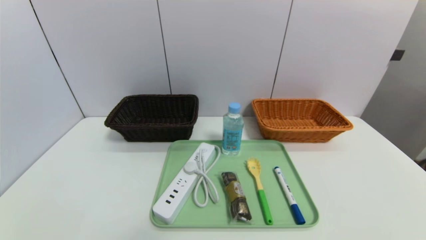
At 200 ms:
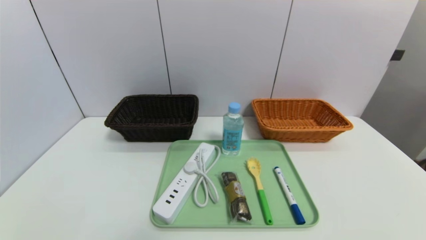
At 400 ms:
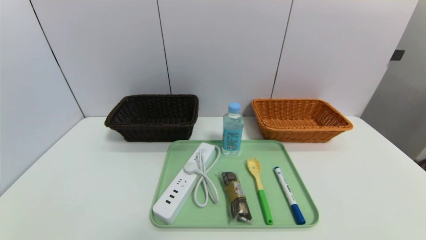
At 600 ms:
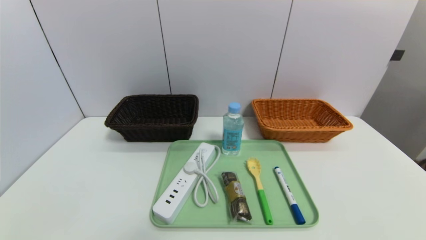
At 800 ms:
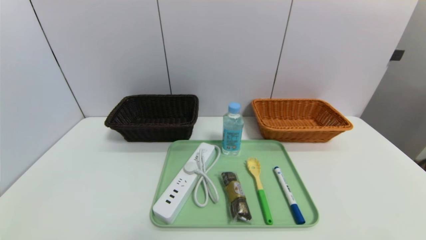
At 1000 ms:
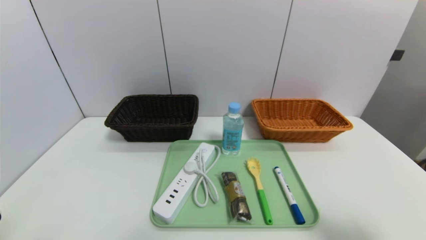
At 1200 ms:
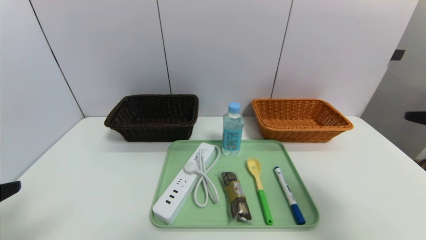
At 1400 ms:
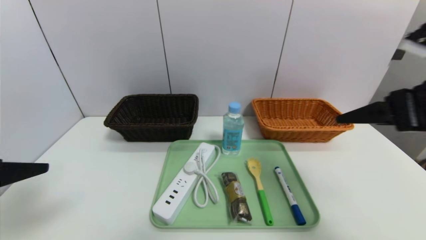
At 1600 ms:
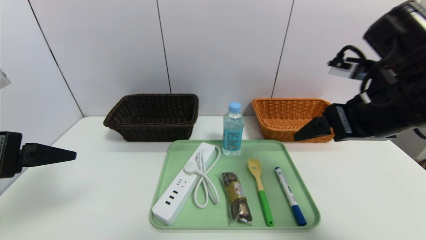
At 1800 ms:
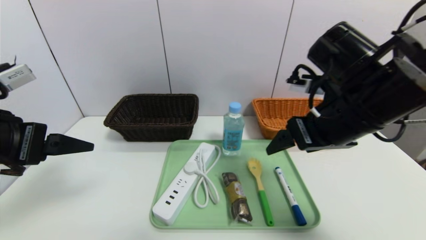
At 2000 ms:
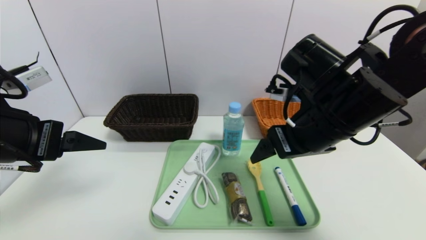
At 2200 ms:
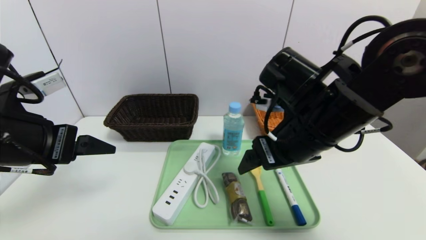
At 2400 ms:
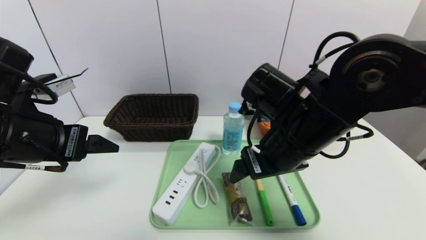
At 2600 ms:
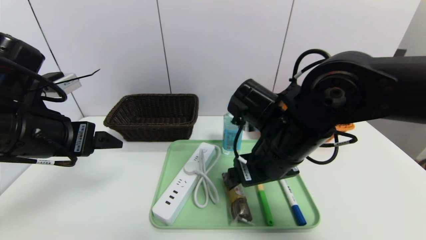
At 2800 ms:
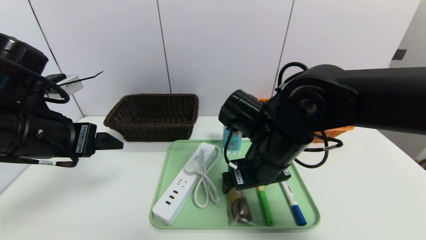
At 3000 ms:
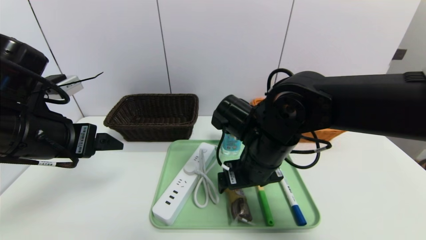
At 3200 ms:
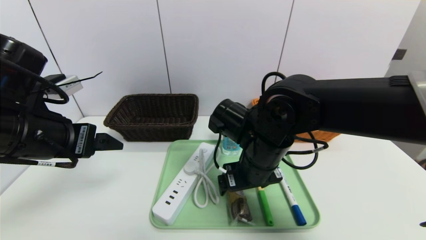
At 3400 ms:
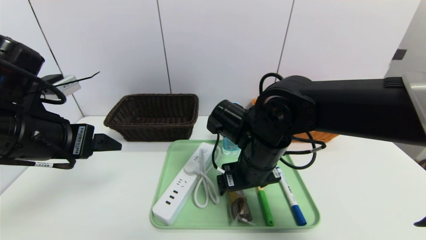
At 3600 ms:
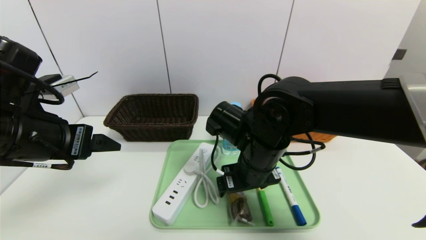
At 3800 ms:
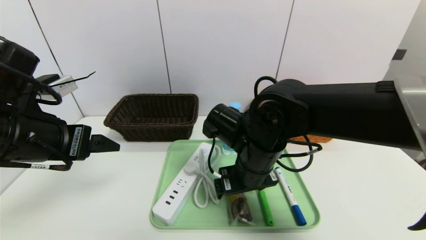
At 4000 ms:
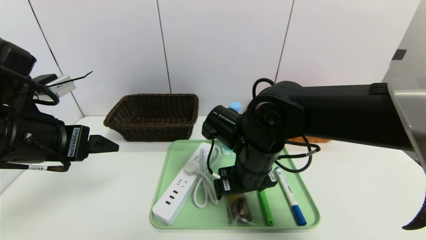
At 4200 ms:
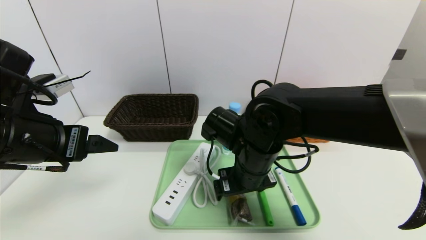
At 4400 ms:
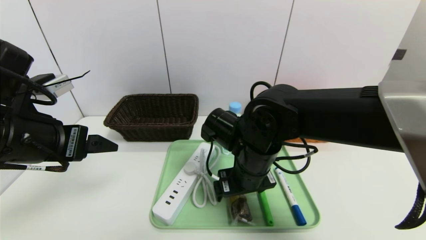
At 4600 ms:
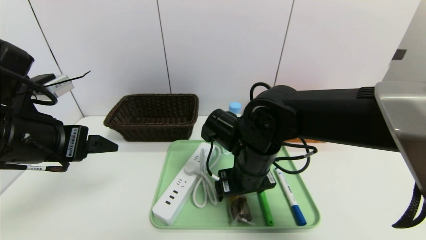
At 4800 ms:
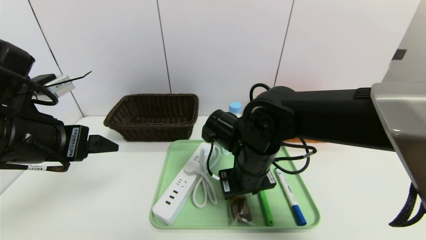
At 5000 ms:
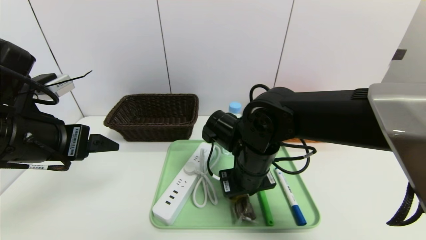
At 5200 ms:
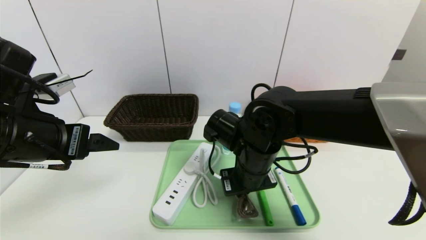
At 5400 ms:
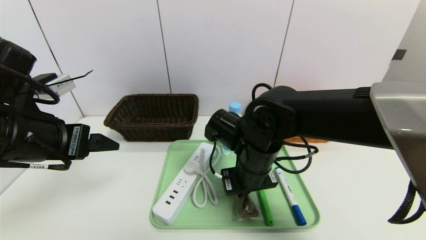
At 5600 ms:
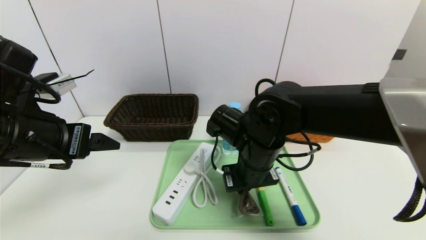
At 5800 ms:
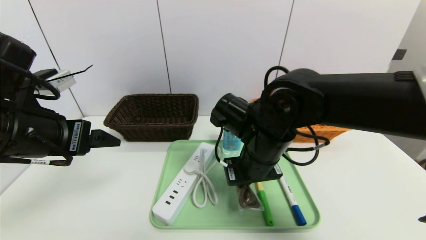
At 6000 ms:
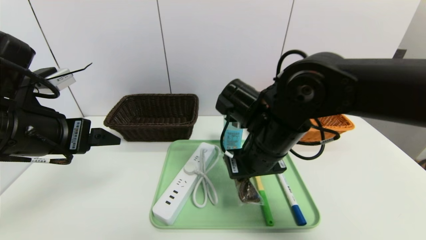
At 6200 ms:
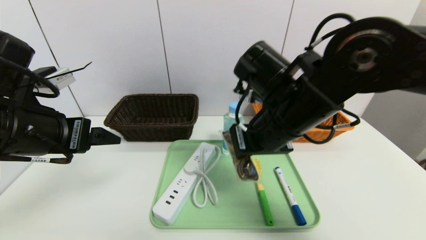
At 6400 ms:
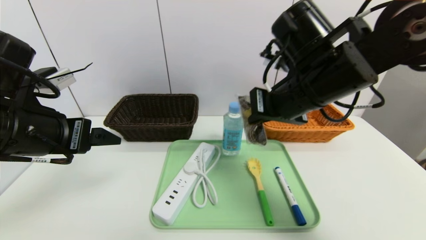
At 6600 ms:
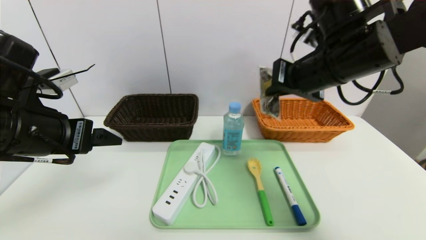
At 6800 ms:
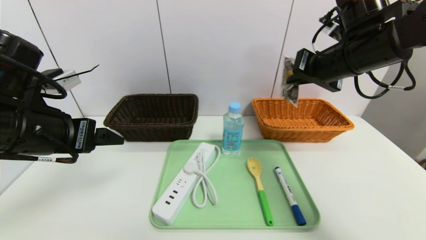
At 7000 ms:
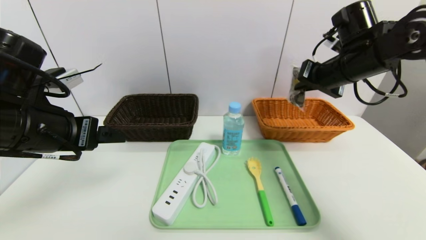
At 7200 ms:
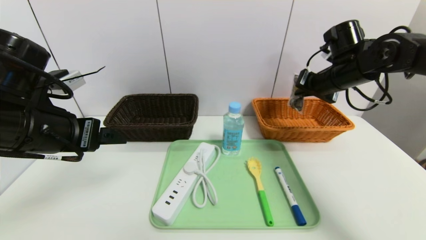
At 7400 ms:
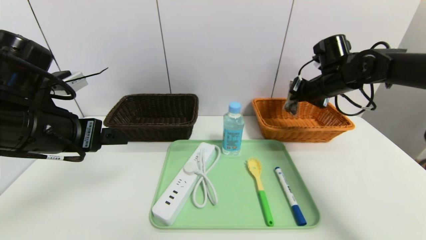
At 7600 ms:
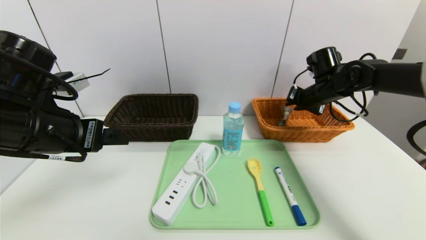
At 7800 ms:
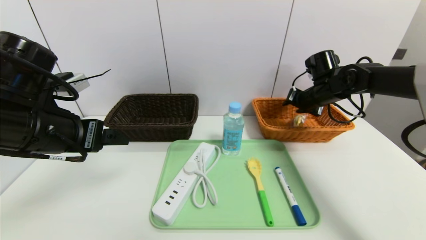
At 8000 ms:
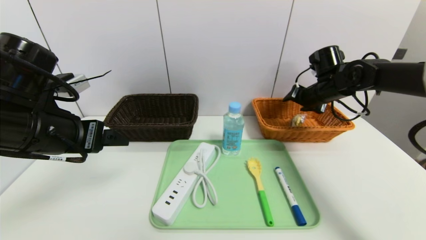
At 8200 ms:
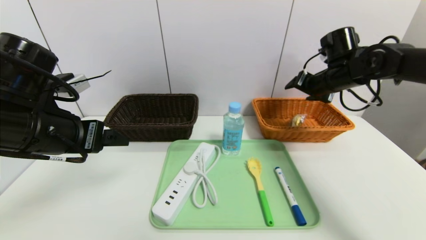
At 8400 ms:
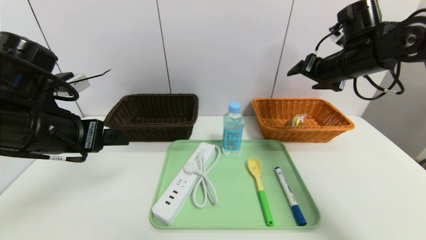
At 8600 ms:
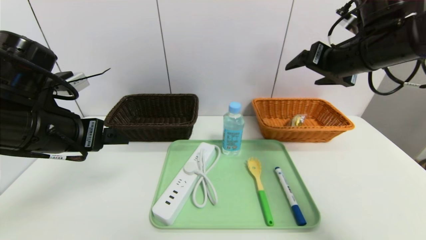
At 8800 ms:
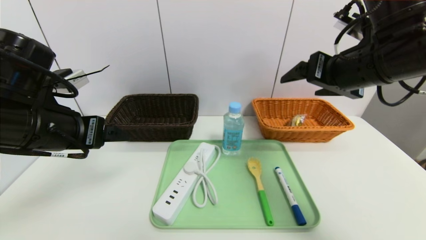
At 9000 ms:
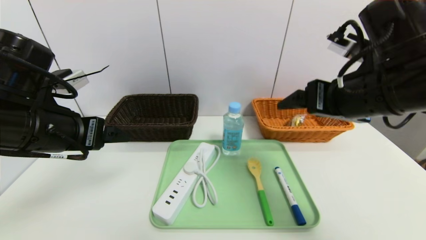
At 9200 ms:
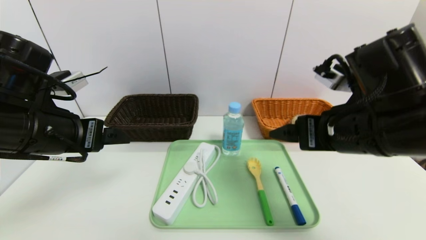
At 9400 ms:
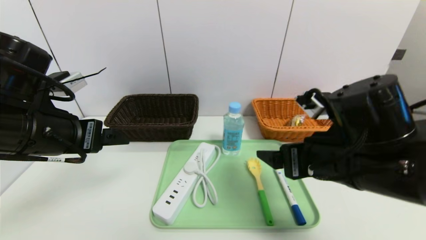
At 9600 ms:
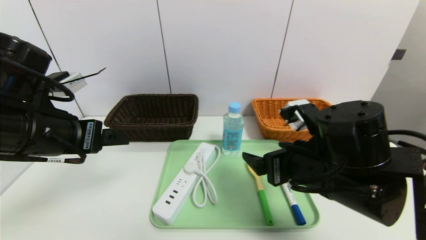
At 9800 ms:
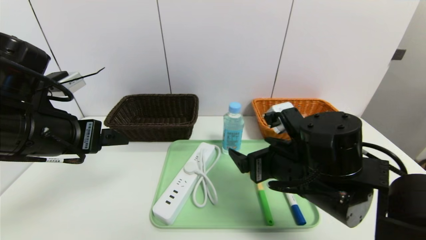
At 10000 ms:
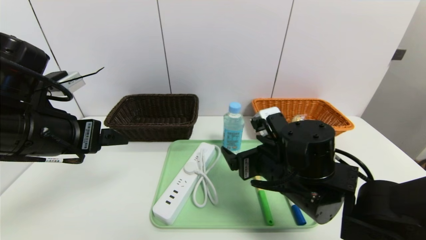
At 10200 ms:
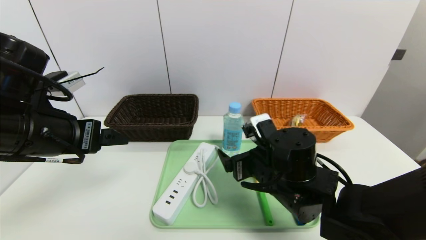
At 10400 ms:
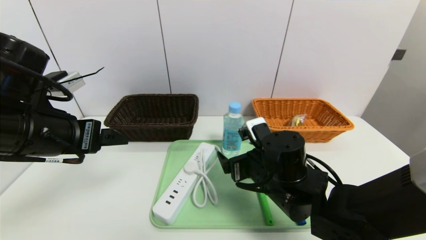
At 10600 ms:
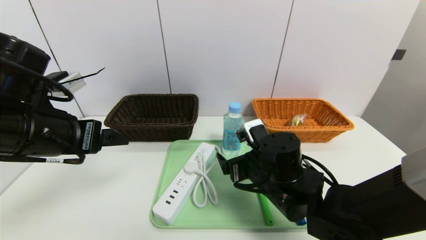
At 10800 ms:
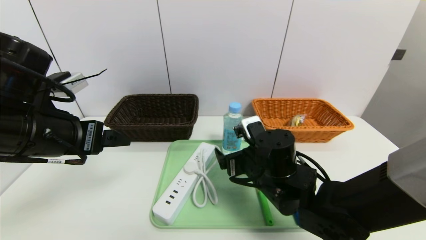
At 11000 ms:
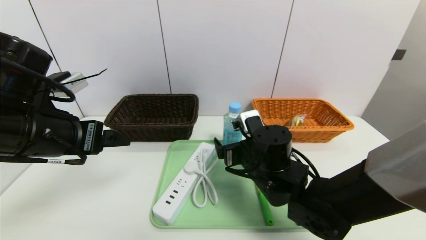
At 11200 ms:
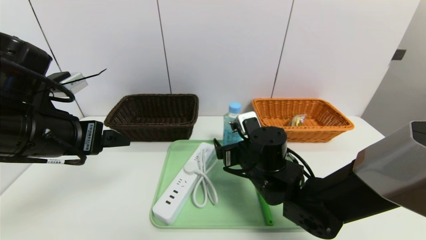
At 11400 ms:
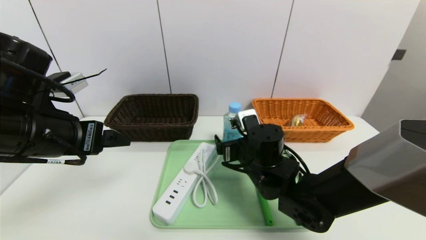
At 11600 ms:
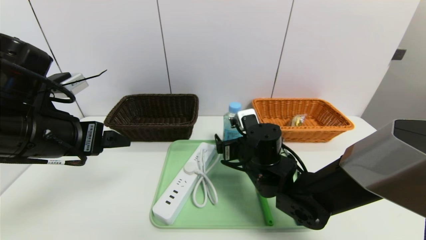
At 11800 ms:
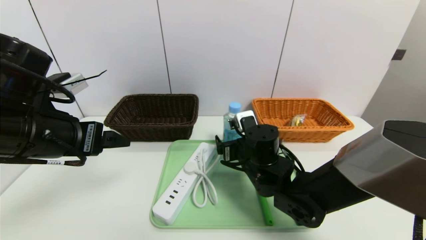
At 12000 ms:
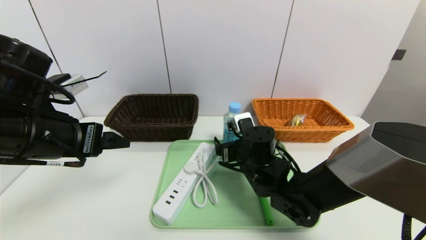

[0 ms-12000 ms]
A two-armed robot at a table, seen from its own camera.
Task of the whole recording: place the food in the right basket with the right gripper, and place the non food items in the left basket with the left gripper.
Step, 0 ms to 8000 ms: Grasp the chocolate and put it in the right basket.
0 ms to 1600 ms: The right gripper heads forward, upward and to the left, covering roughly 35 cm; the left gripper goes approximately 25 cm upward and forward.
1600 ms to 3000 ms: The right gripper heads to the left and downward, covering some 20 cm. The left gripper heads forward, covering approximately 5 cm.
3000 ms to 4400 ms: The grippers stay close to where they were, moving slightly.
4400 ms to 6000 ms: The right gripper goes approximately 5 cm upward, and closes its fingers.
6000 ms to 7600 ms: The right gripper goes approximately 25 cm to the right and forward, and opens its fingers.
7600 ms to 9000 ms: The right gripper shifts approximately 20 cm backward, and opens.
9000 ms to 10400 ms: The right gripper travels downward and to the left by about 20 cm.
10400 ms to 12000 ms: The right gripper goes about 5 cm forward.

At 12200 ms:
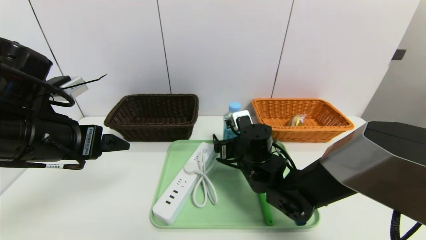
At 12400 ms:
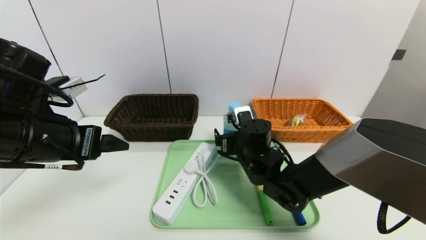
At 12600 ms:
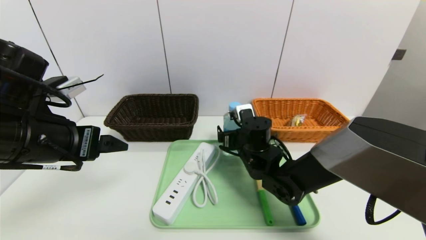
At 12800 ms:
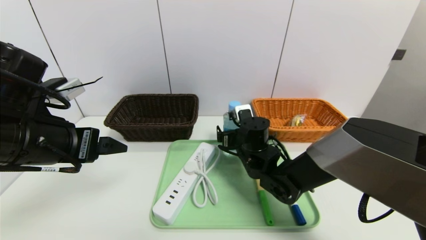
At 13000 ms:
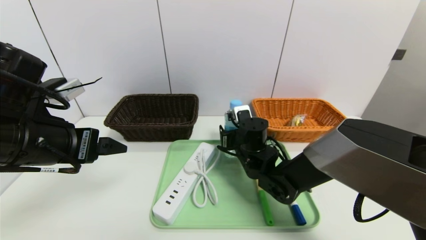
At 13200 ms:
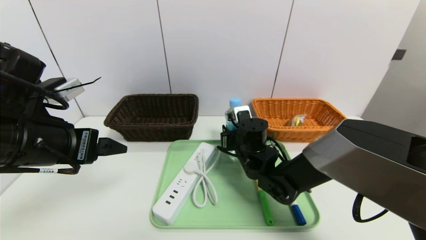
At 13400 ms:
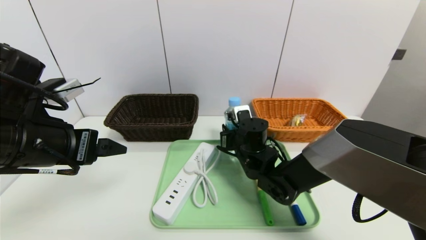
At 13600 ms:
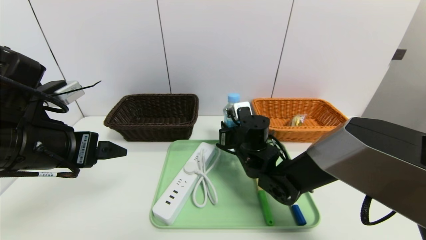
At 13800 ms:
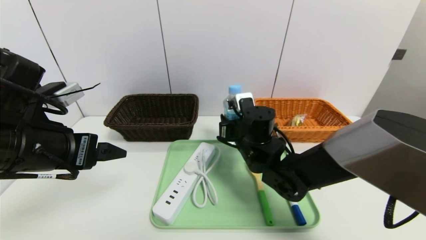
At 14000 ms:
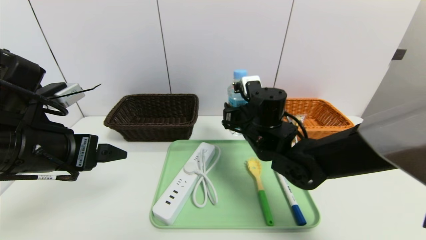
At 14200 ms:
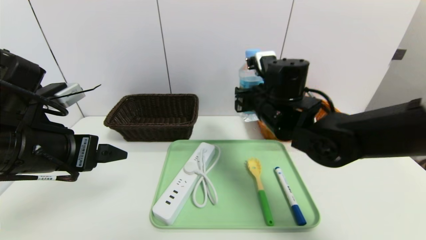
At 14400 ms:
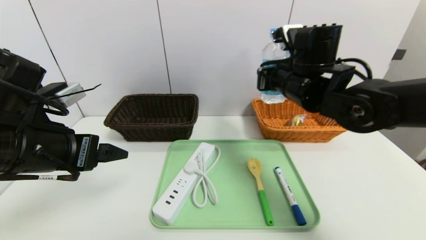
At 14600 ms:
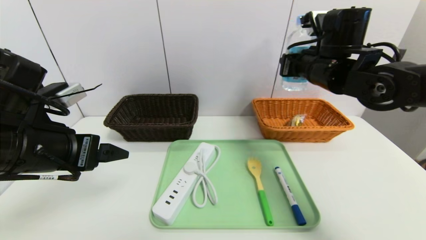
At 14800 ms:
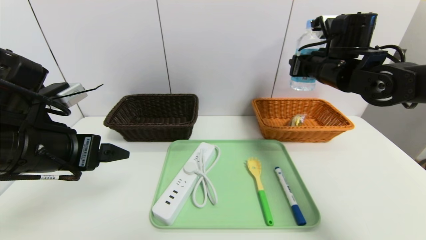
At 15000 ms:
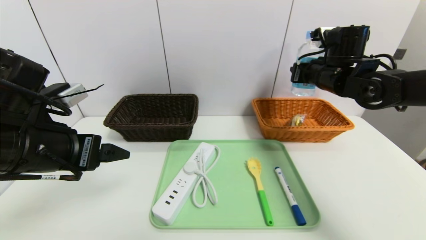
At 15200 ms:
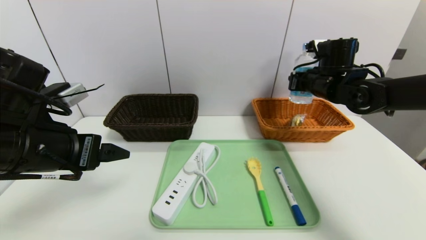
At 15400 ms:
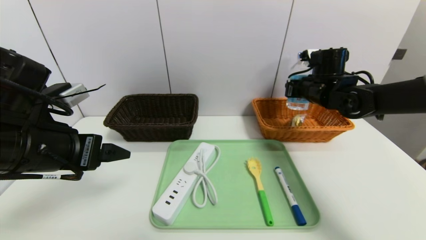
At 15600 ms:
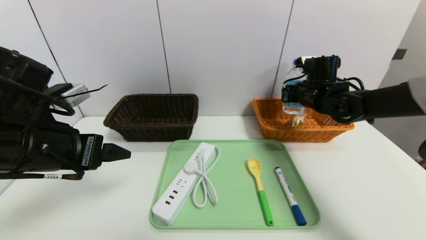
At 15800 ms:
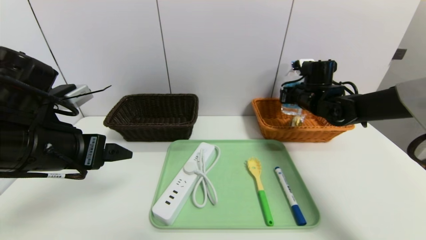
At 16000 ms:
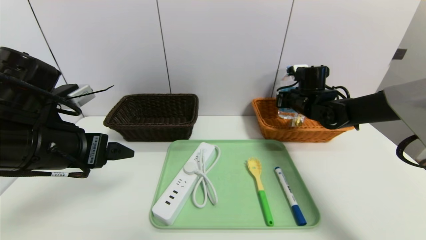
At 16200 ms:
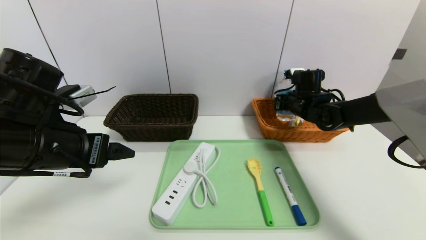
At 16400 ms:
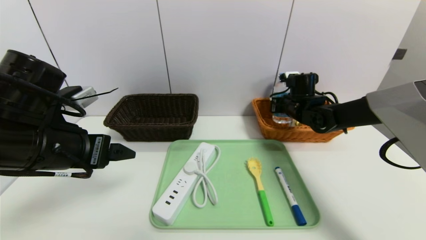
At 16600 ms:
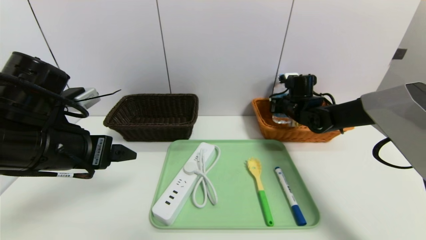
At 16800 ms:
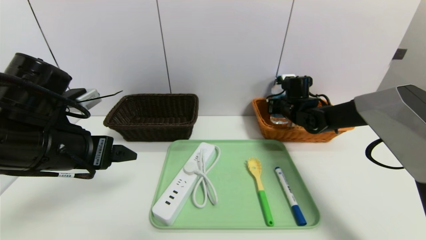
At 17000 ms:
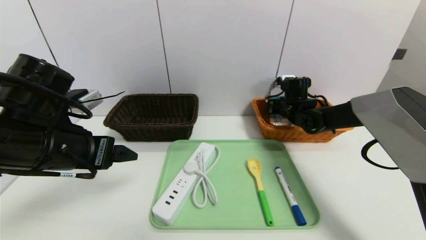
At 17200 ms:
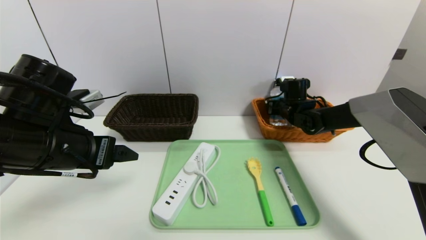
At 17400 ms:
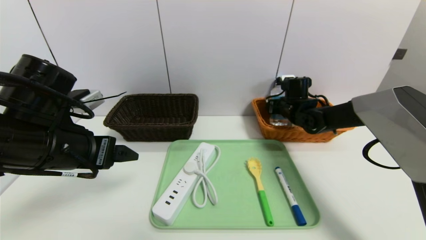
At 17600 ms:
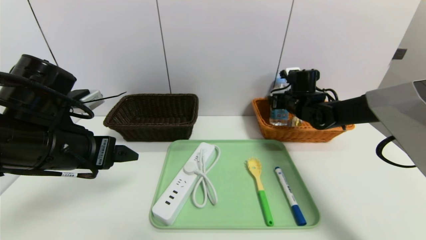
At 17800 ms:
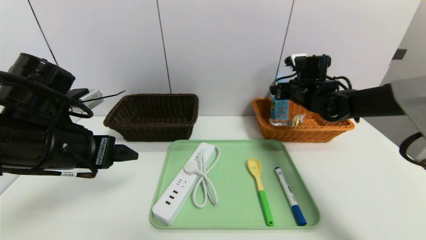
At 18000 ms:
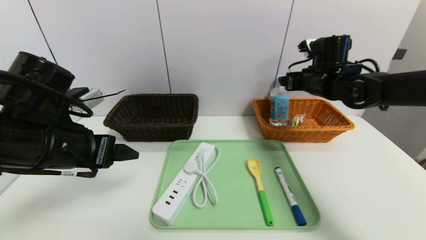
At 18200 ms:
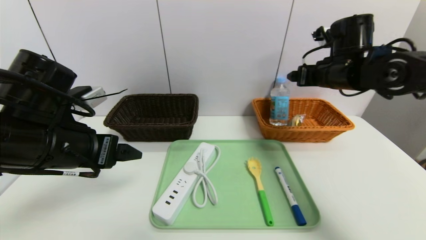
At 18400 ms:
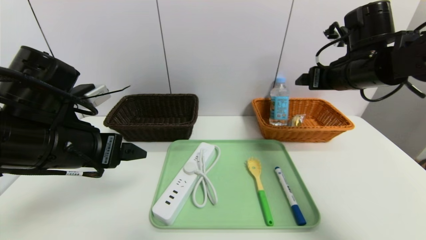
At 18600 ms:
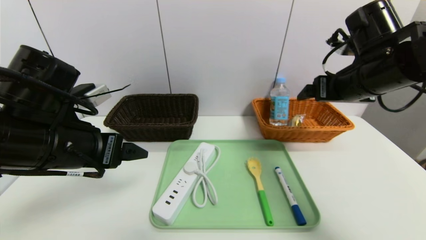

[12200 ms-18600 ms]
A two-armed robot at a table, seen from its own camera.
Task of the whole recording: place the food in the right basket with the right gripper, and place the non food items in the left basket with the left gripper.
Step, 12200 ms to 17800 ms: Grasp the soda water and put it in the right basket.
12200 ms to 13800 ms: The right gripper closes up.
13800 ms to 15400 ms: The right gripper is displaced to the right, forward and upward by some 20 cm.
15400 ms to 17000 ms: The right gripper travels downward and forward by approximately 10 cm.
17000 ms to 18600 ms: The right gripper goes approximately 25 cm backward and upward.
